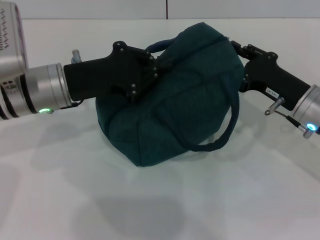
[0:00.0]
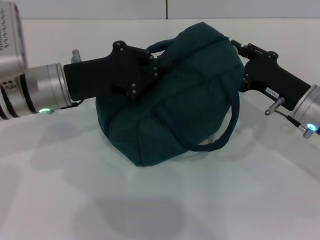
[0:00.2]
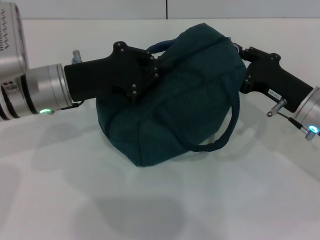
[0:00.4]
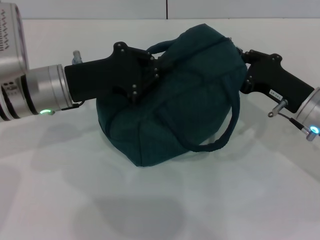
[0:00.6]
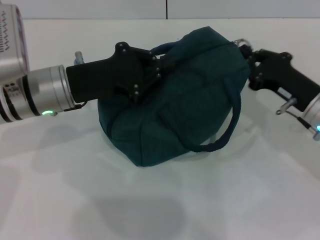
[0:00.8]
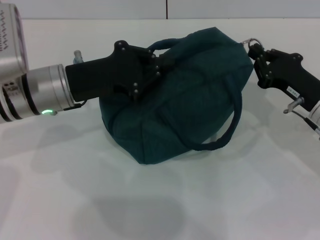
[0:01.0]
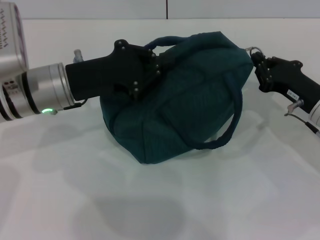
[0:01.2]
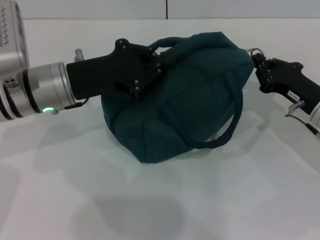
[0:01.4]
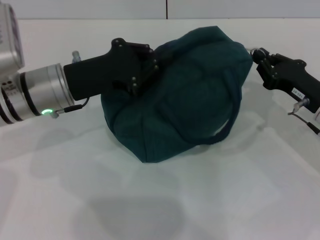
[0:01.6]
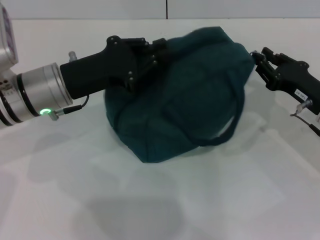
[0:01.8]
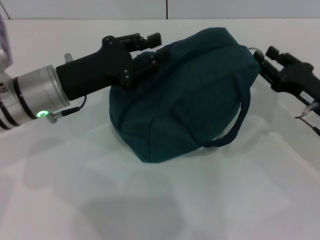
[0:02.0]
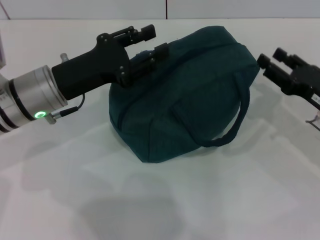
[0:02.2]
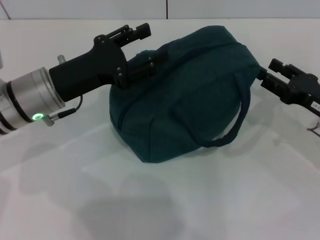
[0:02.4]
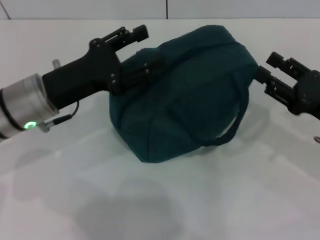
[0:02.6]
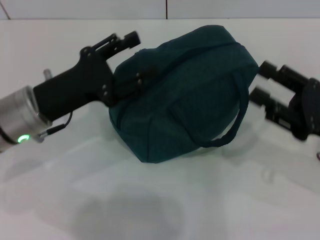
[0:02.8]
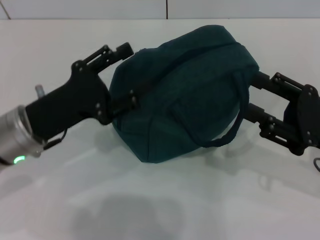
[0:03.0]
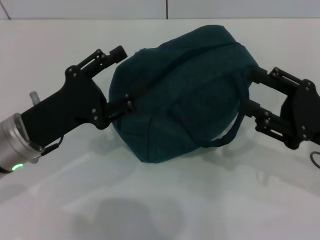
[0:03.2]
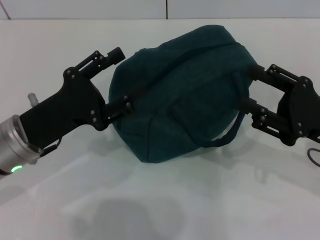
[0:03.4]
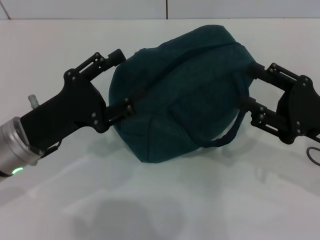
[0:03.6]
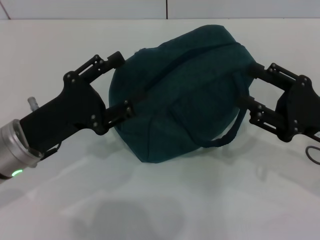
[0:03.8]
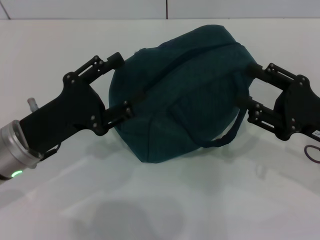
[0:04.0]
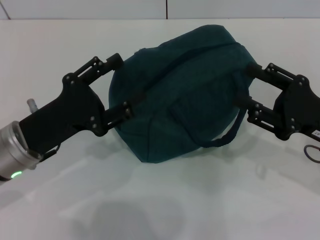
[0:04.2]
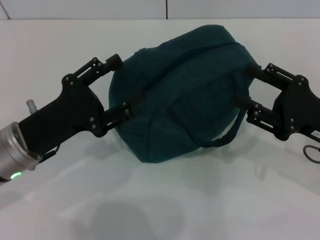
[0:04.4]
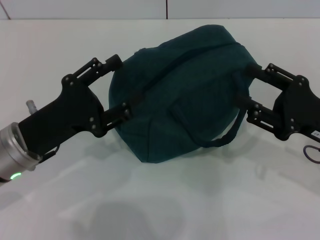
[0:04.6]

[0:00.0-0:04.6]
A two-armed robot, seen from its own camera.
Step, 0:02.2 to 0:02.4: Zip up the lunch bag with your right hand.
0:00.0 to 0:01.6: The right gripper closes up.
0:01.6 to 0:03.0: The two grippers go roughly 5 cm backward. The right gripper opens, while the left gripper opens.
0:03.0 to 0:04.6: The grippers stay close to where they were, moving slightly.
